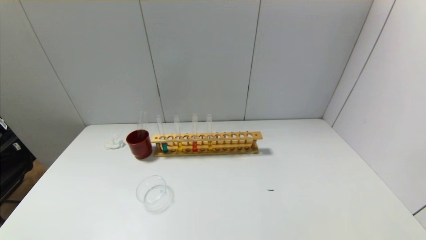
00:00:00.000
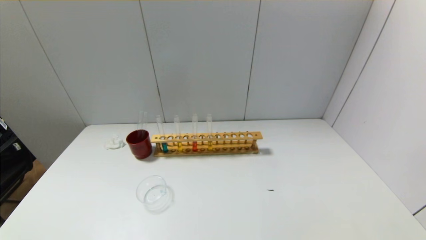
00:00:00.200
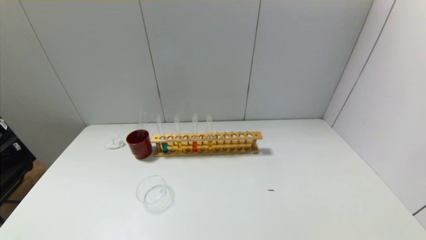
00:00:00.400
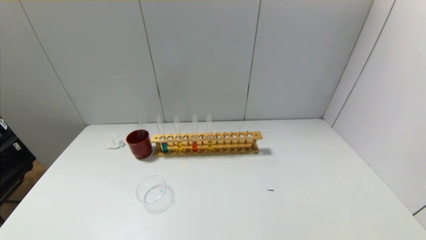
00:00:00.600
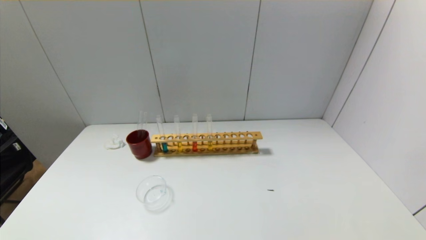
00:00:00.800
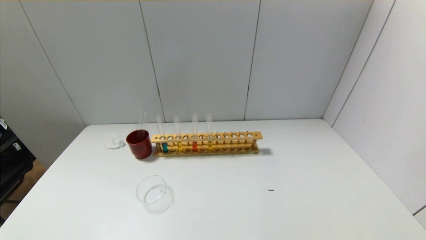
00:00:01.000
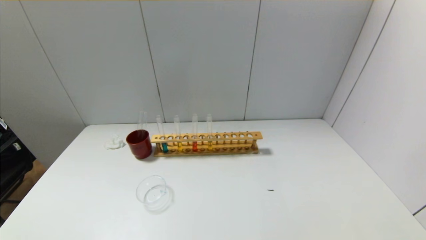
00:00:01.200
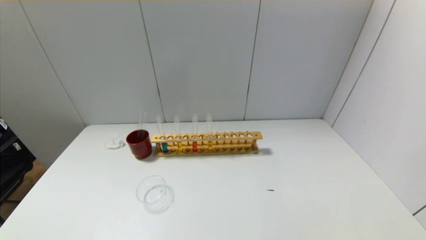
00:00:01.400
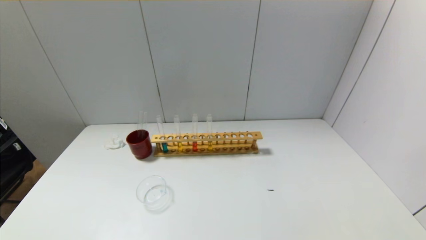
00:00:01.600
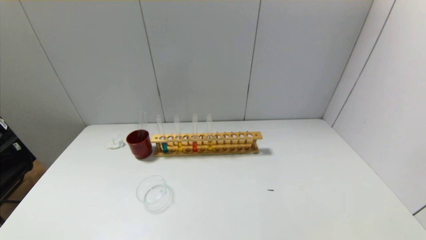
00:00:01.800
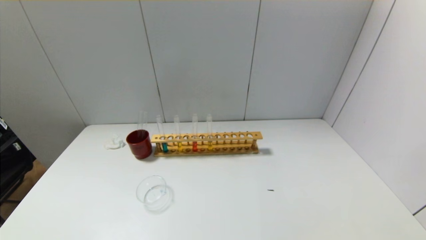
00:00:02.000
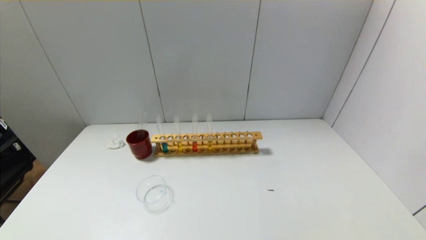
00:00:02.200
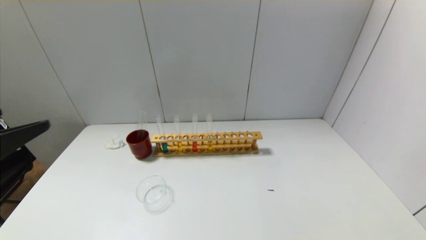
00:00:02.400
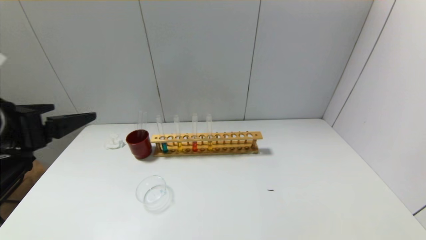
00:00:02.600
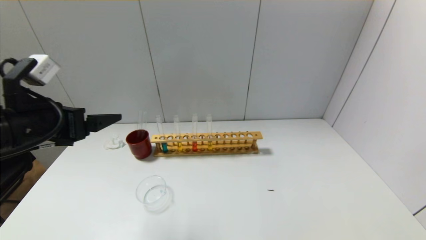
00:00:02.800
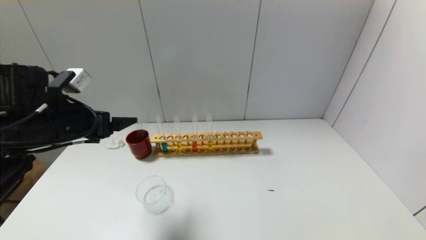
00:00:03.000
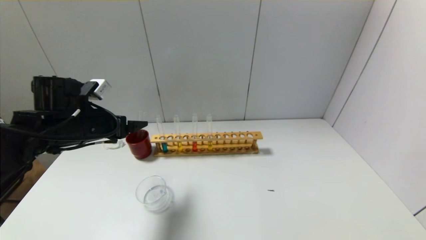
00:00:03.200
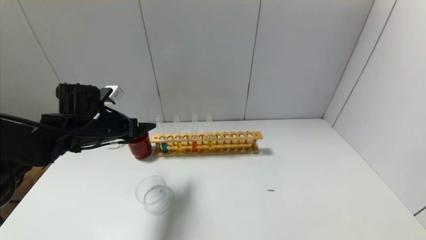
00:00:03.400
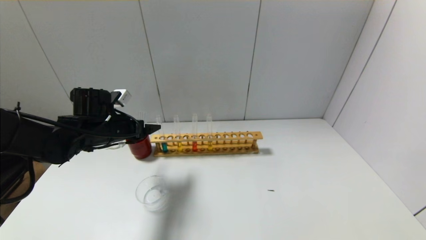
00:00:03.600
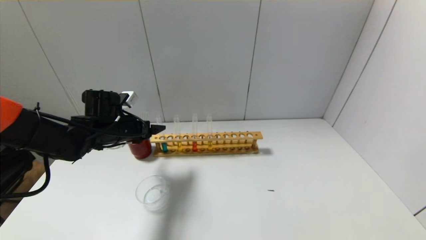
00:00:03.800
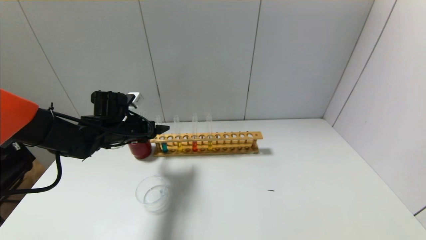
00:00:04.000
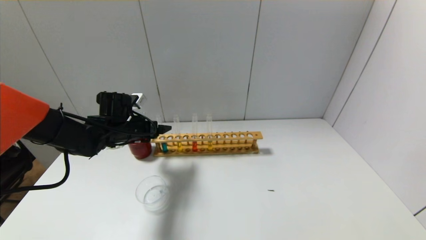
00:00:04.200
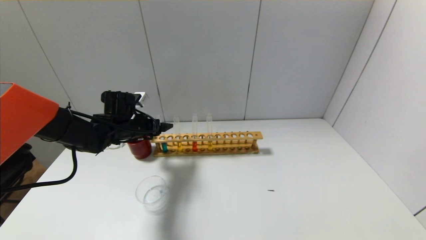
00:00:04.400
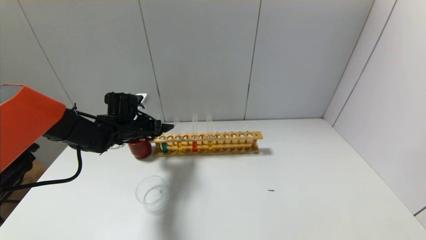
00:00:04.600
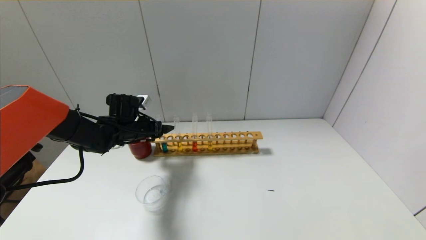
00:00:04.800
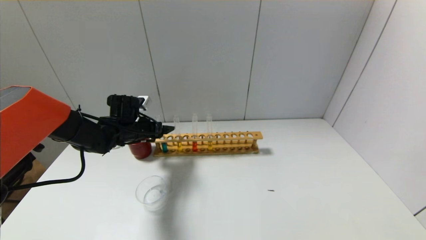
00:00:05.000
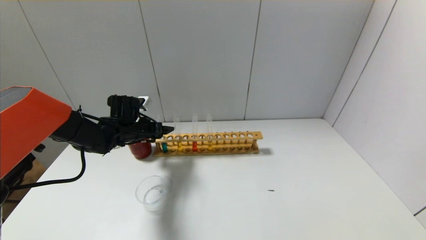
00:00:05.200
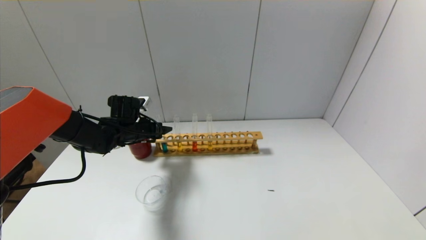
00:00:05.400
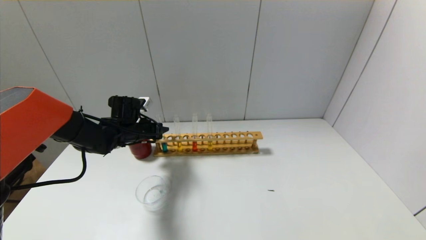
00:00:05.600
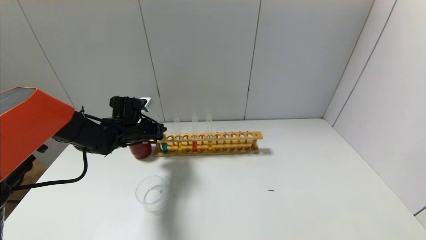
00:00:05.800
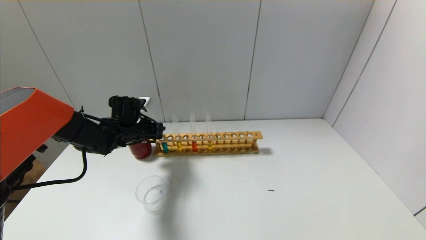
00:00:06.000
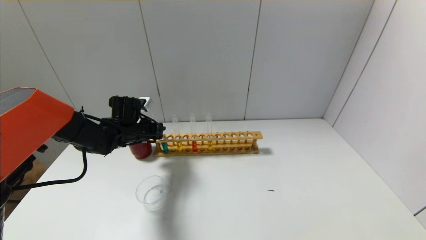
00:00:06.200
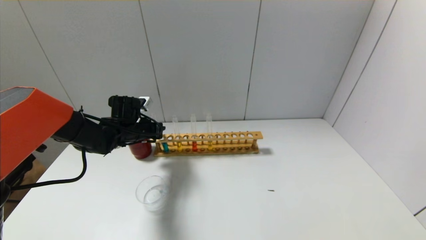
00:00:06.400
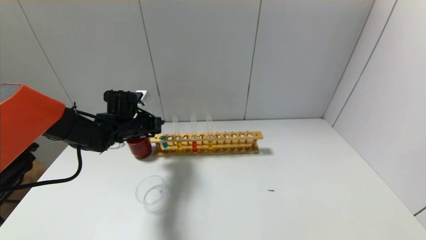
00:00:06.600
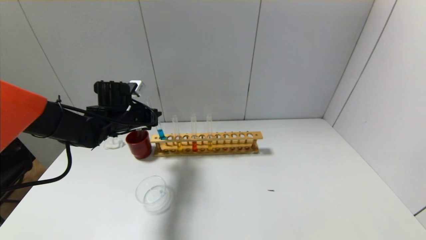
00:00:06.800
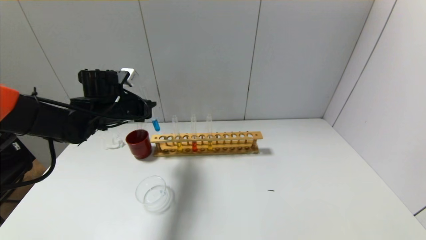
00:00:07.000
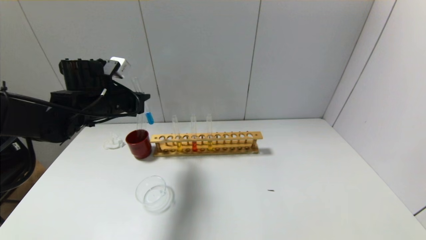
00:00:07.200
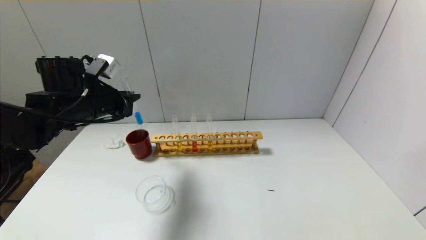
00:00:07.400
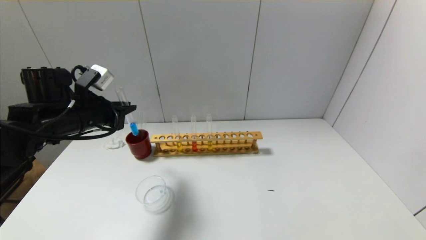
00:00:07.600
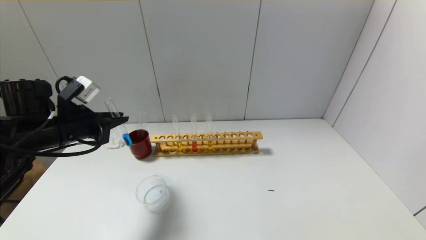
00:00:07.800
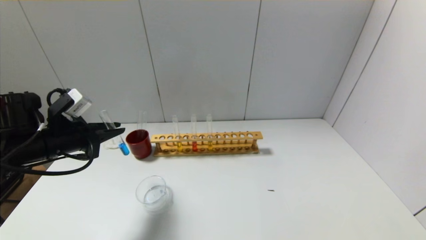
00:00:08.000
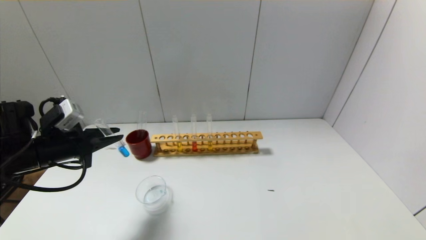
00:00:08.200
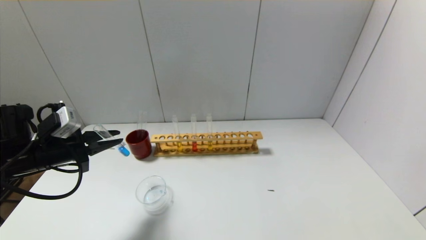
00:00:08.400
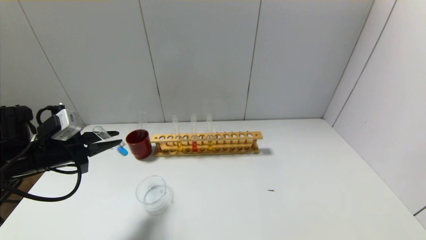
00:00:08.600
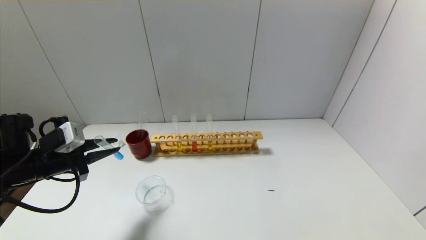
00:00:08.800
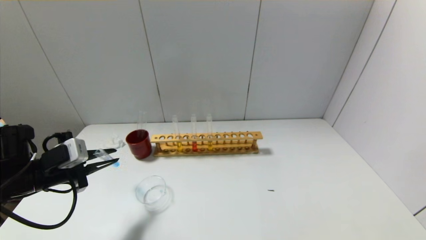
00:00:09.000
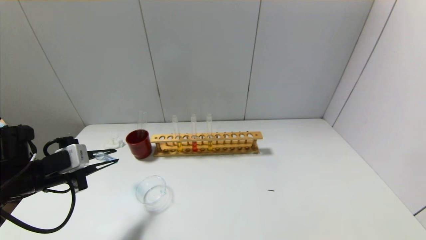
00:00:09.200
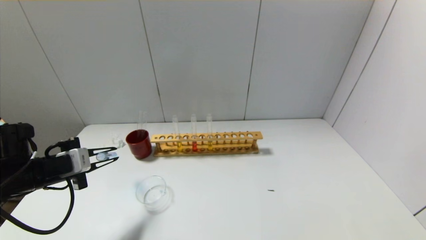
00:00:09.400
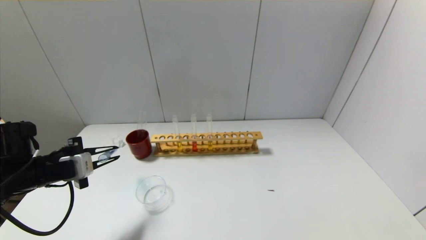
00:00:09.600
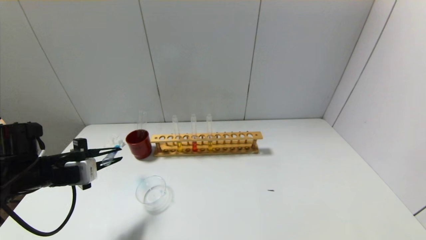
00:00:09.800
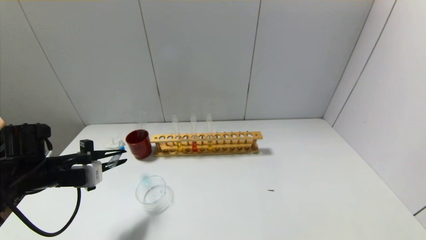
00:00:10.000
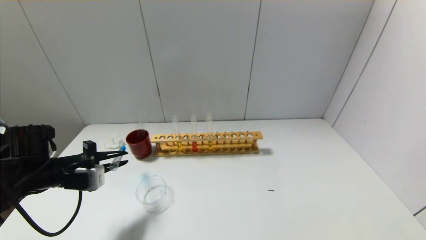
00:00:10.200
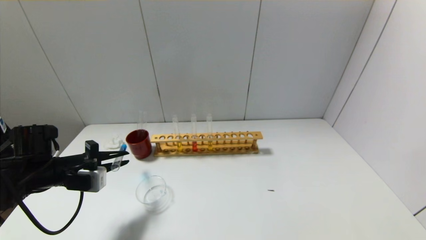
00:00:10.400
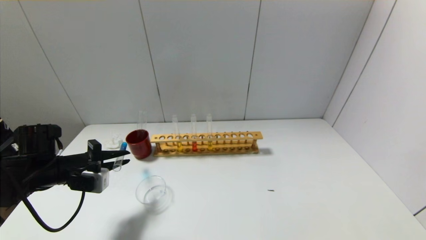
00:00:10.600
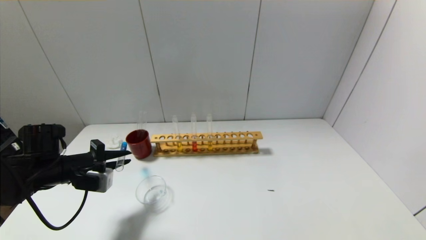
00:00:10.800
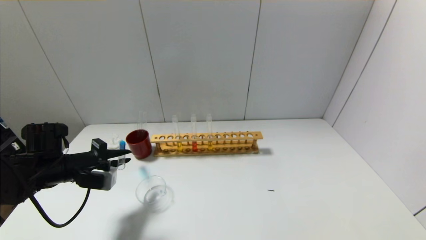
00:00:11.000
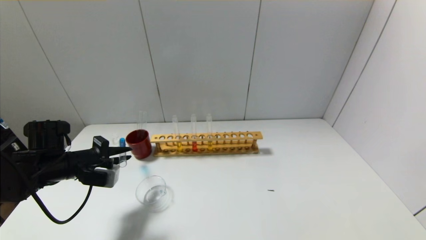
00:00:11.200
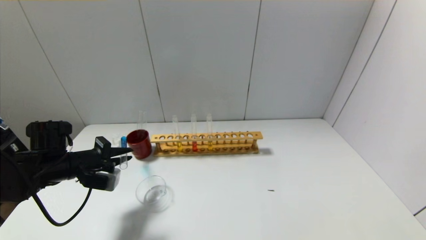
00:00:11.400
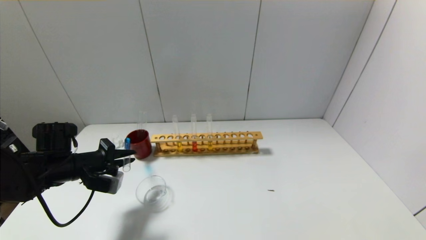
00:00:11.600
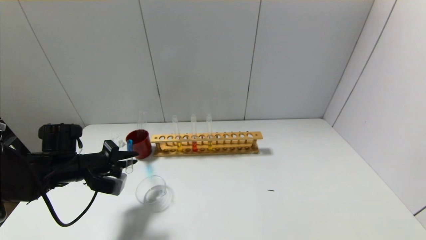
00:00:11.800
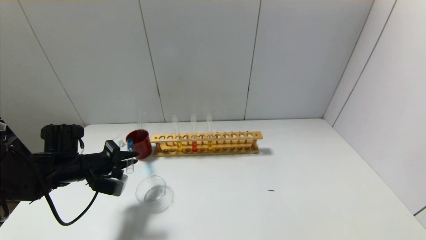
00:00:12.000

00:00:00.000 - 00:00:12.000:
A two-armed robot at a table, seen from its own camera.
Step, 00:00:00.000 - 00:00:05.800: Grasp the blue reagent with the left gripper.
00:00:01.600 - 00:00:03.000: The left gripper travels forward by approximately 30 cm.
00:00:03.000 - 00:00:04.400: The left gripper shifts about 15 cm forward and downward.
00:00:04.400 - 00:00:06.000: The left gripper closes up.
00:00:06.000 - 00:00:07.600: The left gripper moves upward, backward and to the left, about 15 cm.
00:00:07.600 - 00:00:09.000: The left gripper shifts about 10 cm downward, backward and to the left.
00:00:10.400 - 00:00:12.000: The grippers stay close to where they were, moving slightly.

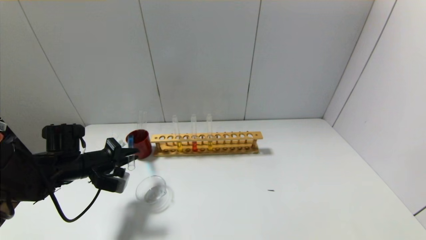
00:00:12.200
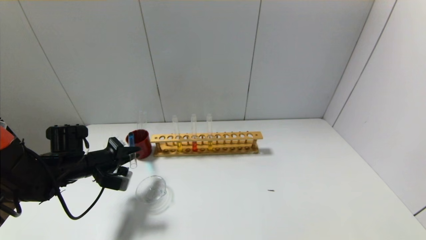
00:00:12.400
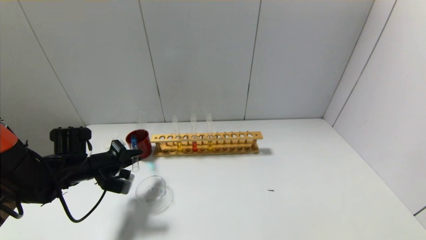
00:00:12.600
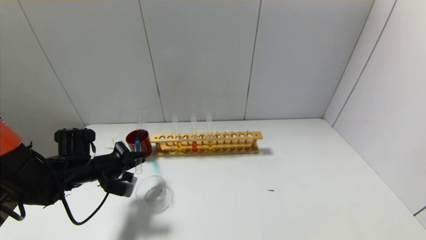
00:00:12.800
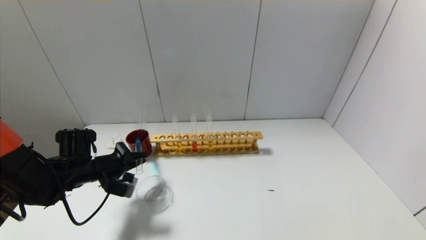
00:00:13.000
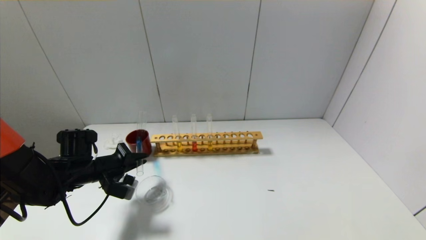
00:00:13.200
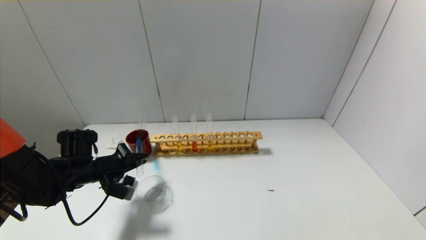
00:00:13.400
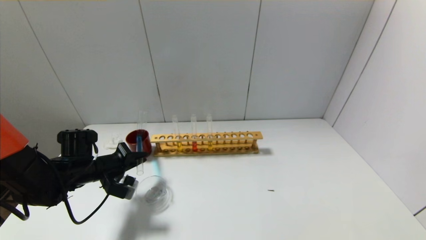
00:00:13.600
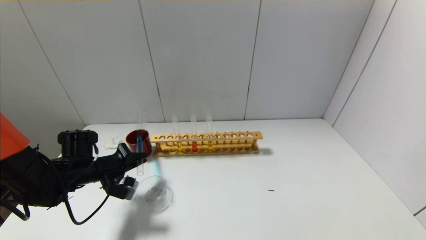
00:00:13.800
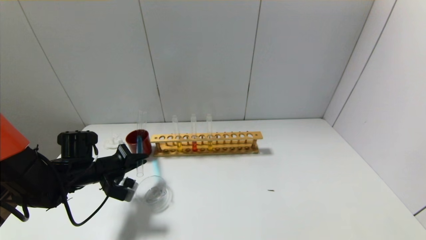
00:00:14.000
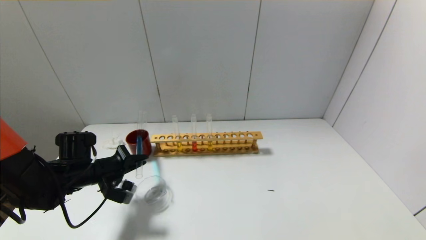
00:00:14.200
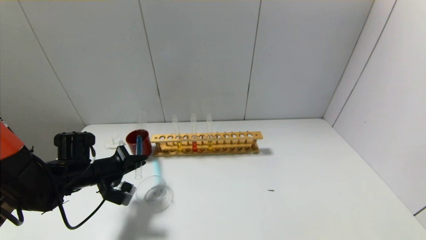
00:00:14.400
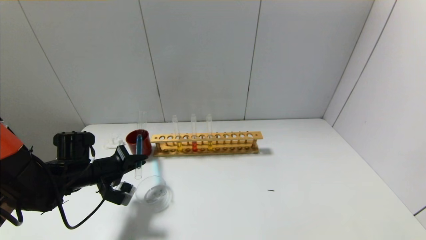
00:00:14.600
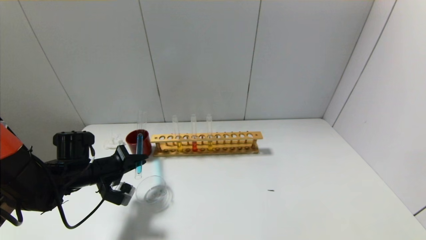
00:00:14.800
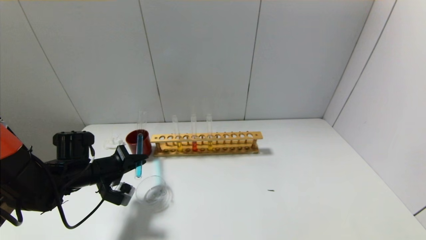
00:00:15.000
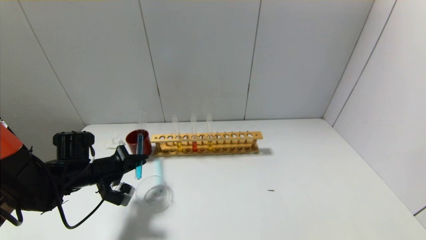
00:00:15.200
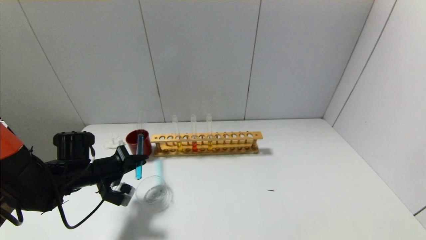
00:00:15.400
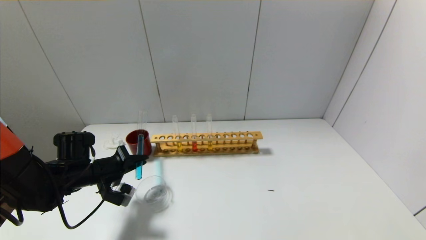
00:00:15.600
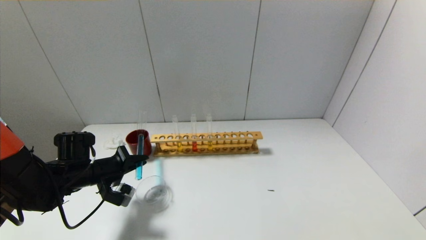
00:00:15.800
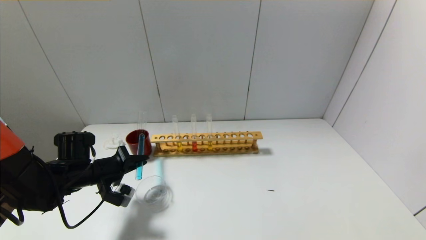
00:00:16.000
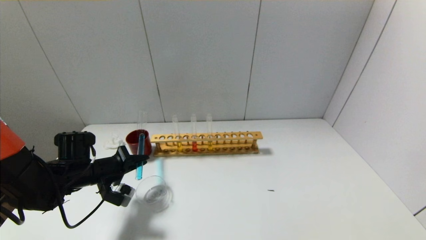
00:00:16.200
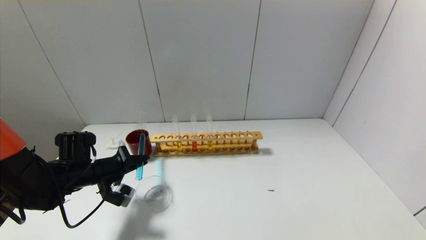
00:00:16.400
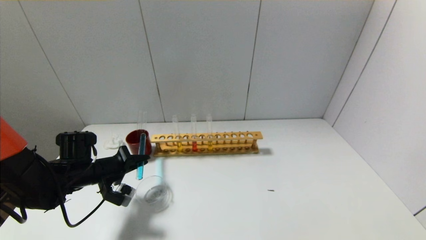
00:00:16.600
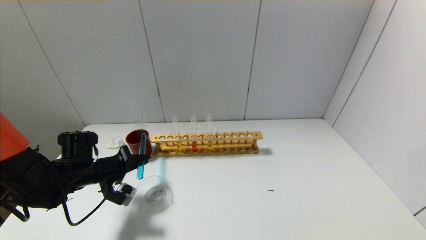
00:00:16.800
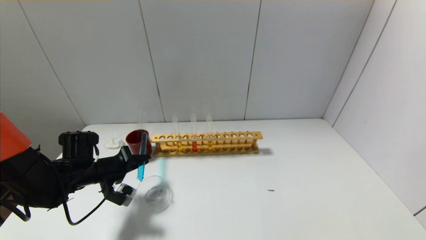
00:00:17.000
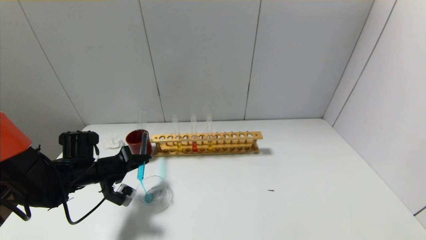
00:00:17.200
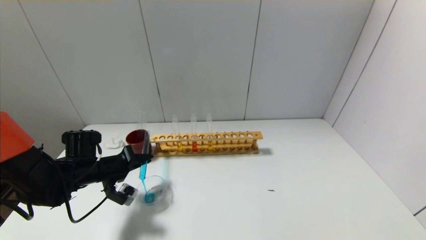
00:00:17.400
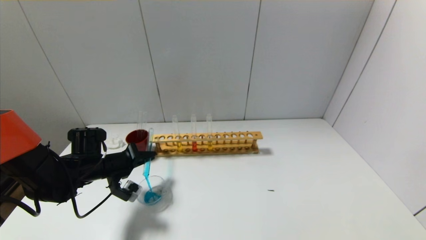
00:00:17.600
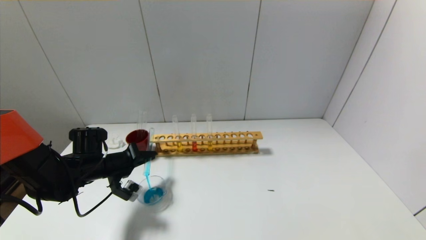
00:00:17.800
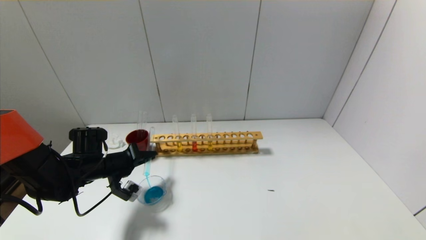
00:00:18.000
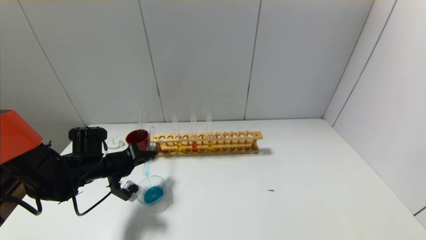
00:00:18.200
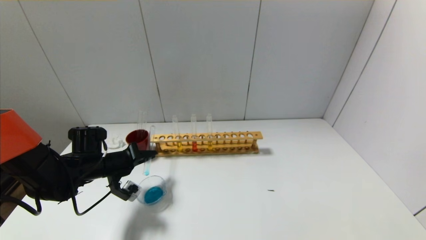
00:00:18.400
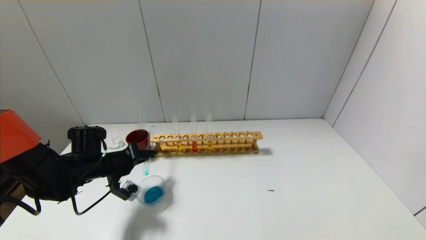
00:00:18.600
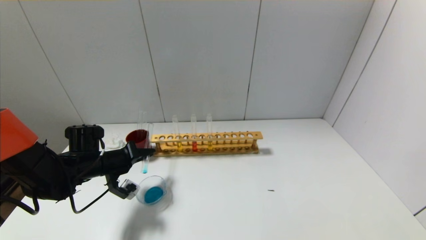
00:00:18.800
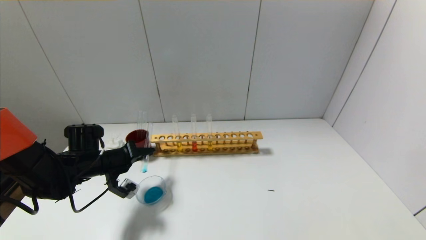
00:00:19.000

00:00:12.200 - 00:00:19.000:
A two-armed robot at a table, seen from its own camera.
00:00:12.200 - 00:00:15.000: The grippers move only a little.
00:00:15.000 - 00:00:16.200: Both grippers stay put.
00:00:16.200 - 00:00:19.000: There are only small adjustments of the grippers.
